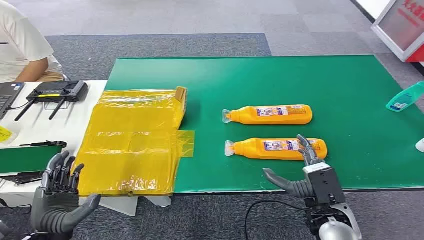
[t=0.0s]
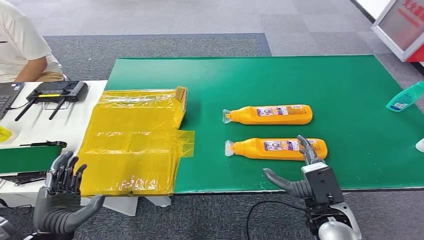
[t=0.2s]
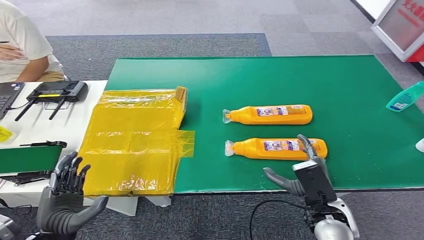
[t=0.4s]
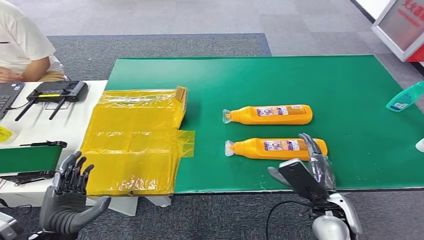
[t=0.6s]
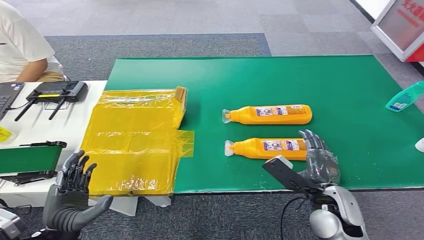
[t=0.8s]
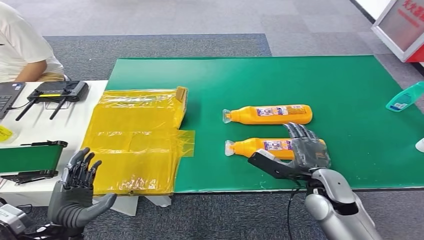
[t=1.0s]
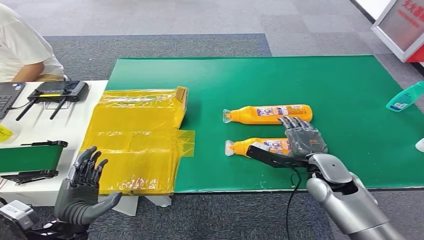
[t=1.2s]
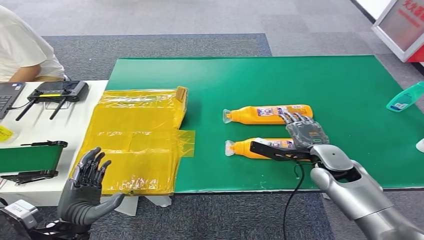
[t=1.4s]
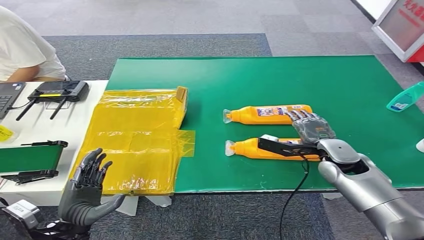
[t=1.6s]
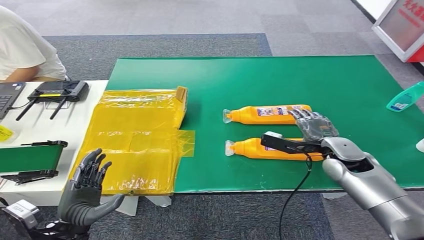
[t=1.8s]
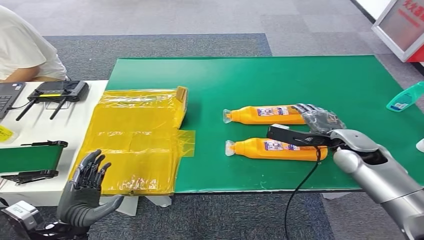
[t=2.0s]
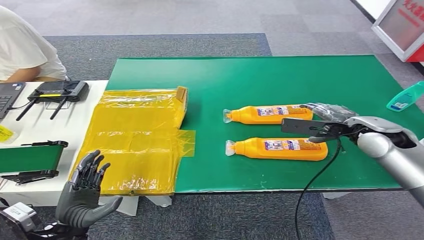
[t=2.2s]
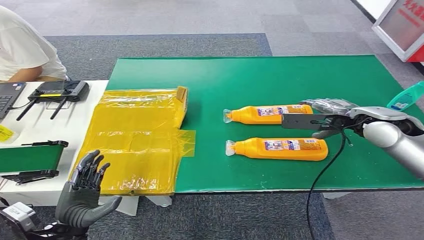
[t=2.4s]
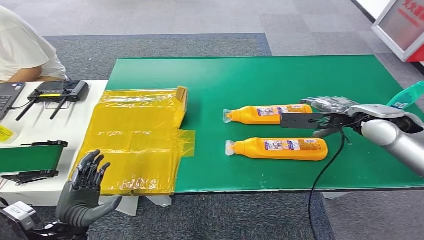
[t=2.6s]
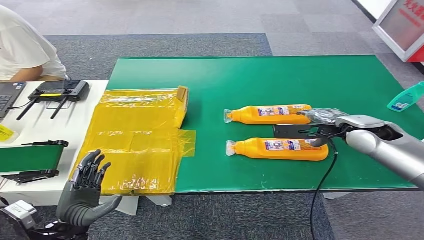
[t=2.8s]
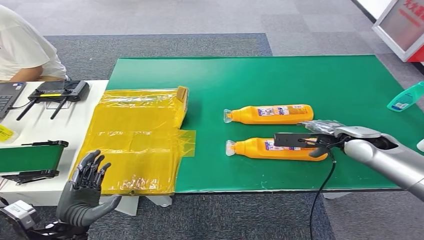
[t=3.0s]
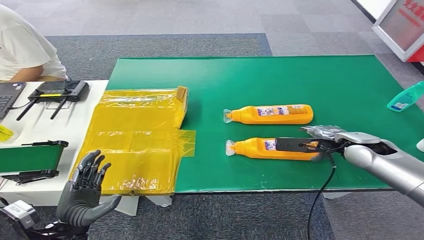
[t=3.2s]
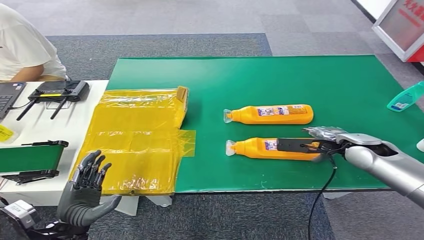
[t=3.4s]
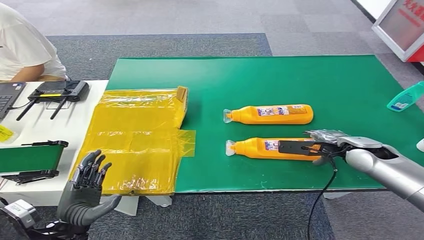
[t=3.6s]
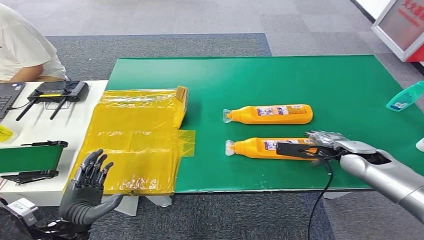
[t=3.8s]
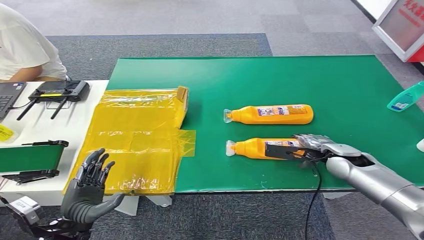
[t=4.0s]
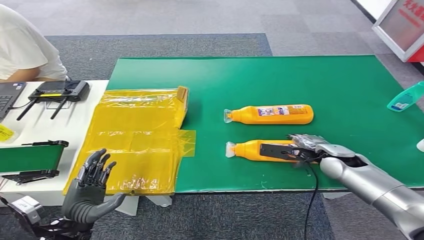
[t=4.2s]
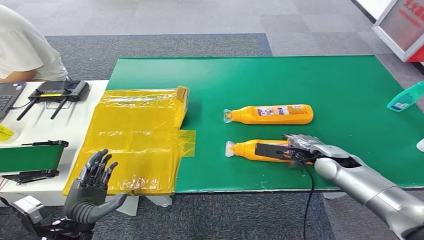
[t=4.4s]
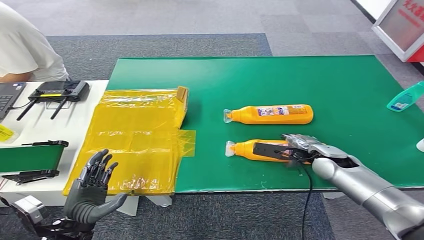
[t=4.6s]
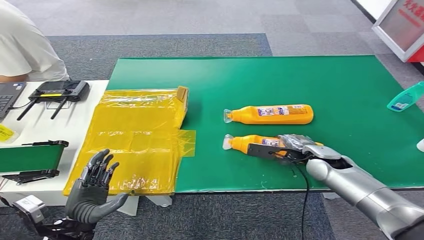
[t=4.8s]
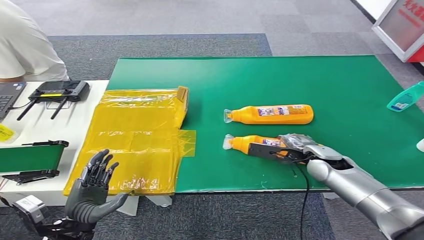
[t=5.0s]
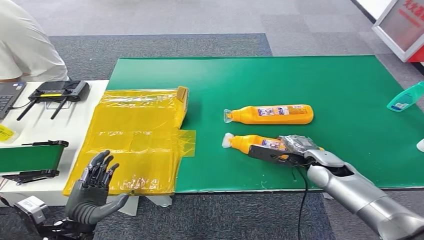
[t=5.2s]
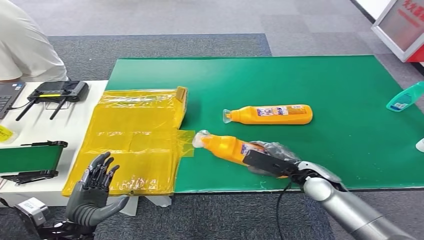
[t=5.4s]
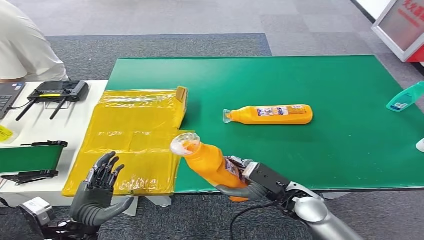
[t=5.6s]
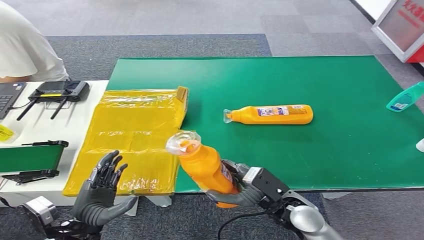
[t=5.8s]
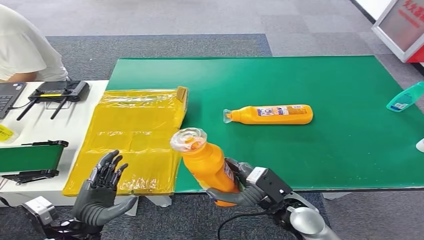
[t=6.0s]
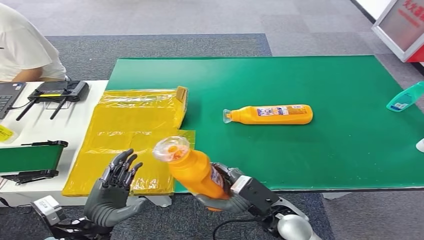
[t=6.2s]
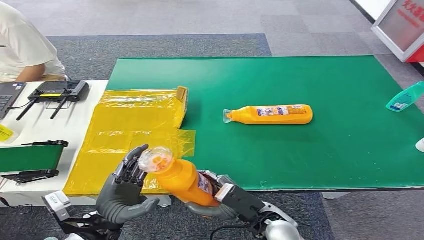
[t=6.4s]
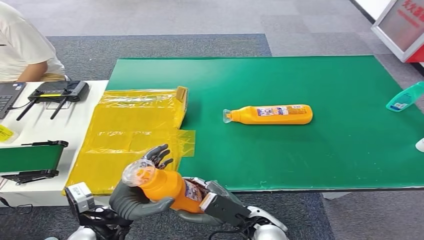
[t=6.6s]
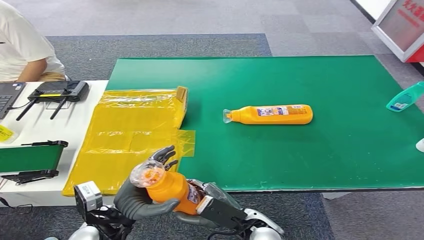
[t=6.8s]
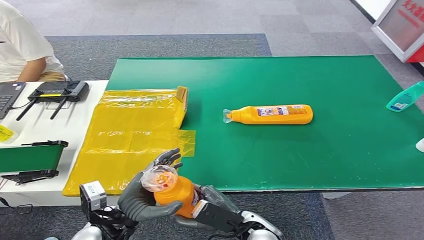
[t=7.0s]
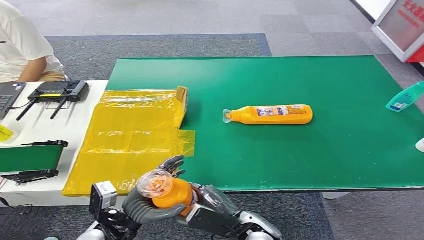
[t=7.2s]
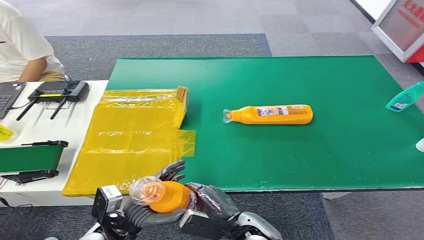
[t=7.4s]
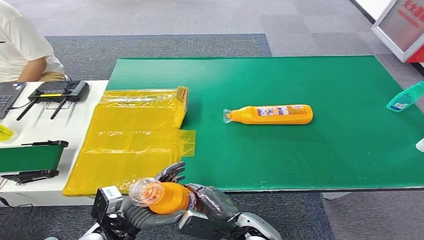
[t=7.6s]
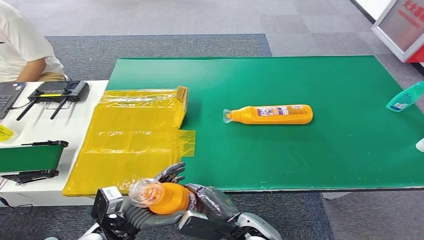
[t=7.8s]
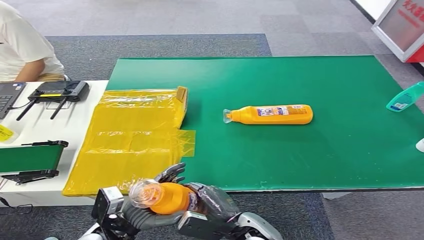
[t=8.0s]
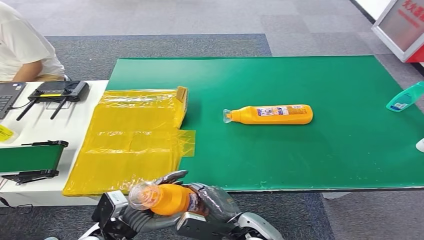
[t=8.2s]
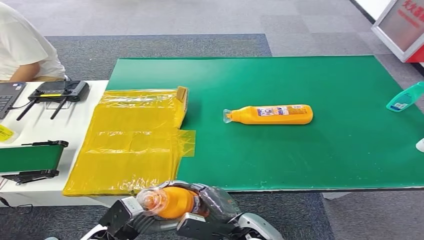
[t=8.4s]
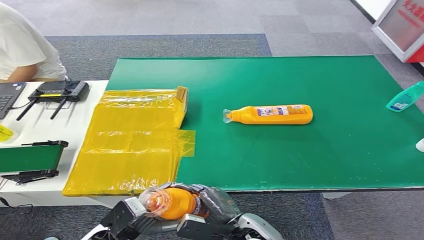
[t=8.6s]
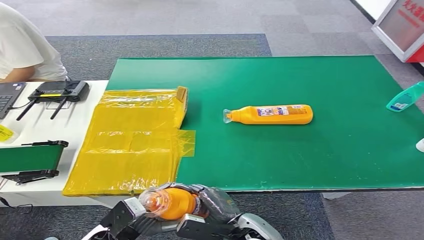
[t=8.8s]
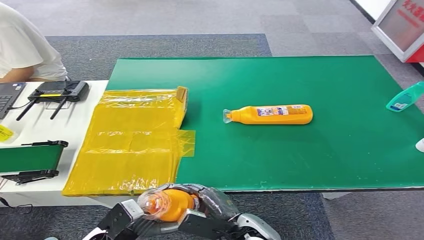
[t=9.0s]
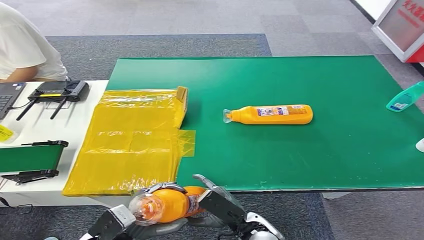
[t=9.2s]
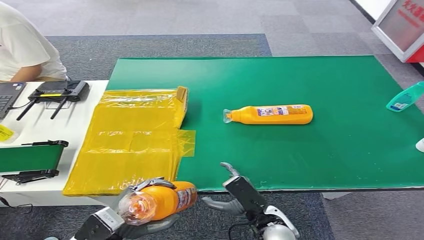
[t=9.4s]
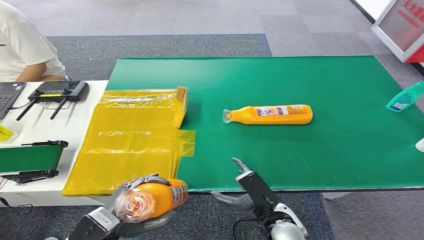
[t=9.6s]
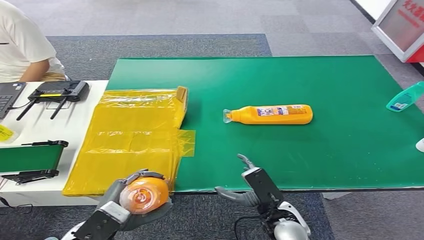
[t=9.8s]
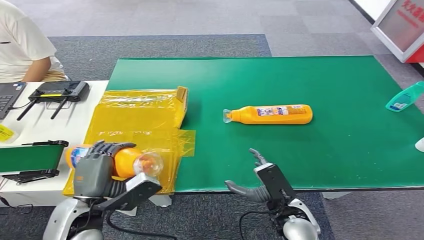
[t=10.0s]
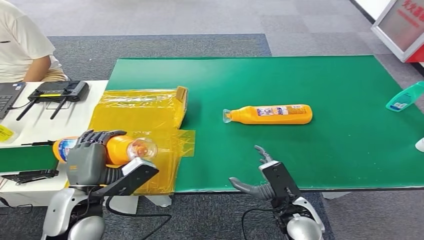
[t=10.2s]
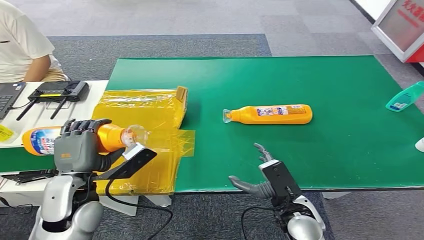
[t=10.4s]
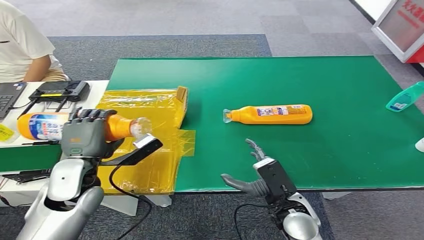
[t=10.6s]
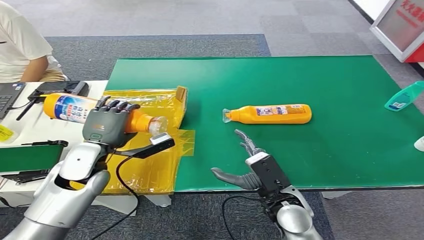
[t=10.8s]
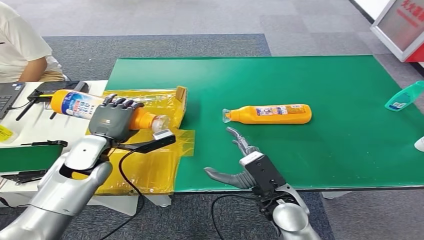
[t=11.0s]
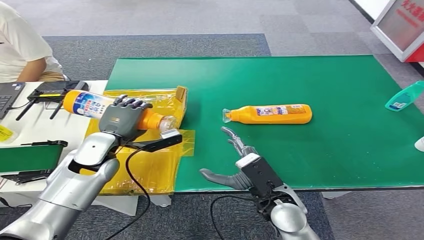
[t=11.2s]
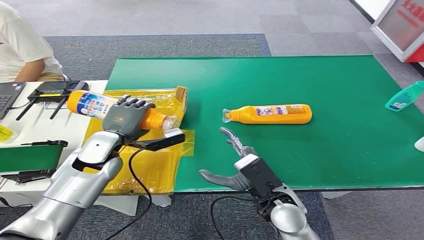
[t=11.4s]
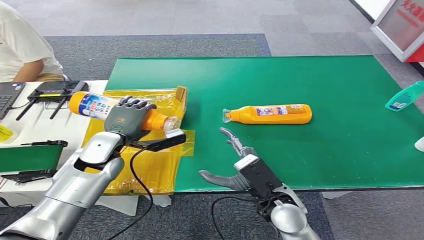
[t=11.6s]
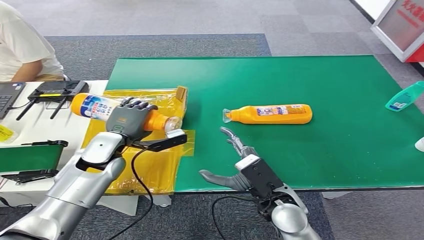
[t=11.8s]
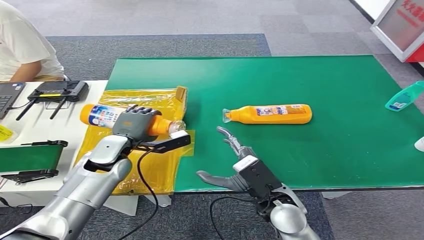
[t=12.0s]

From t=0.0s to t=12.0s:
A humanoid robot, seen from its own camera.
Step, from t=0.0s to t=6.4s: Pick up the bottle from the table.
From t=1.6s to t=3.0s: The right hand shifts about 5 cm upward.
From t=3.0s to t=4.4s: The right hand moves downward, roughly 10 cm.
From t=4.4s to t=6.0s: The right hand is displaced backward and to the left by roughly 20 cm.
From t=6.0s to t=7.6s: The right hand shifts roughly 10 cm to the left, while the left hand heads to the right, covering approximately 5 cm.
From t=7.6s to t=9.0s: The hands make only small movements.
From t=9.0s to t=10.4s: The left hand travels upward and forward by approximately 15 cm; the right hand travels to the right by roughly 10 cm.
From t=10.4s to t=12.0s: The left hand shifts about 15 cm forward, while the right hand shifts by about 5 cm.

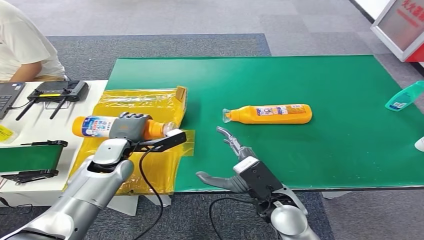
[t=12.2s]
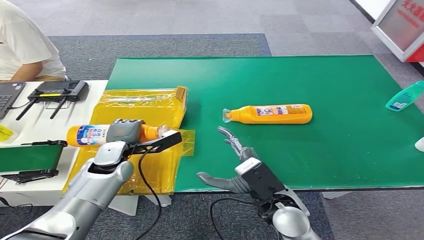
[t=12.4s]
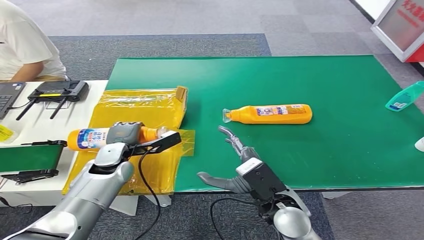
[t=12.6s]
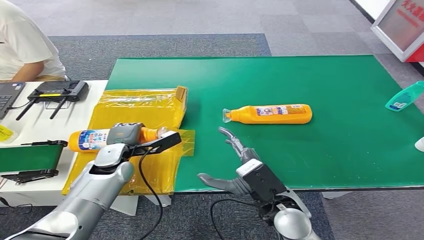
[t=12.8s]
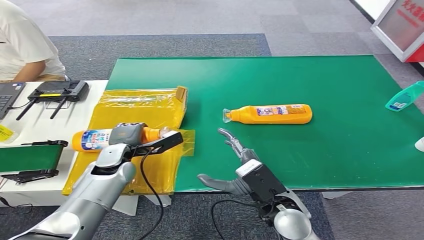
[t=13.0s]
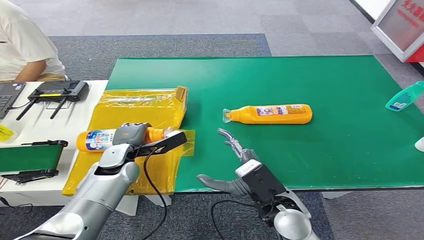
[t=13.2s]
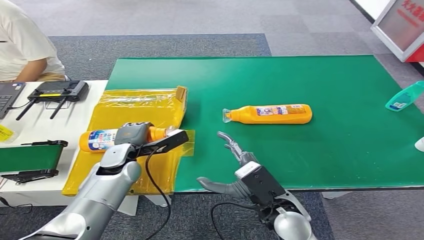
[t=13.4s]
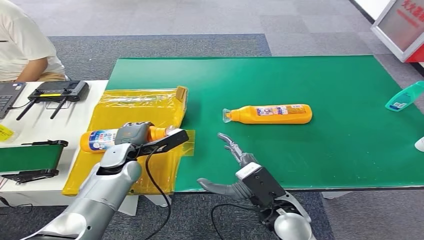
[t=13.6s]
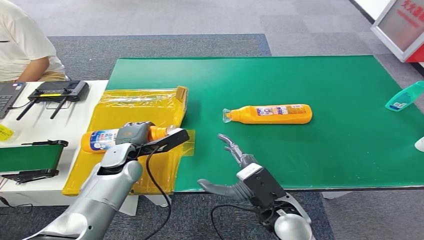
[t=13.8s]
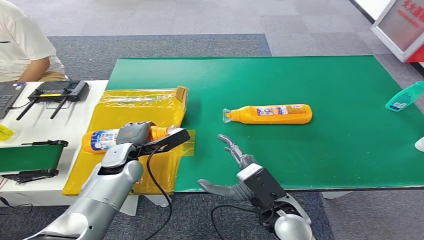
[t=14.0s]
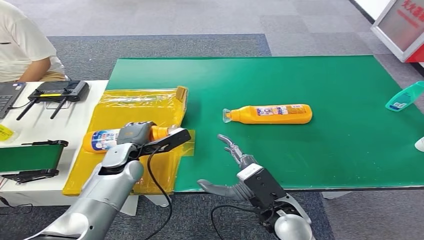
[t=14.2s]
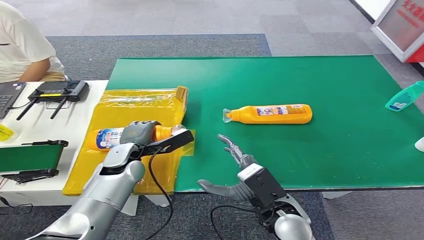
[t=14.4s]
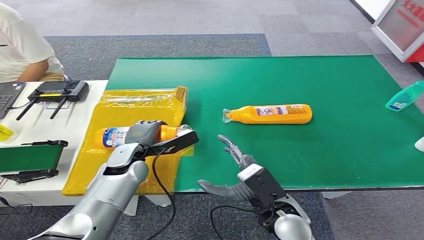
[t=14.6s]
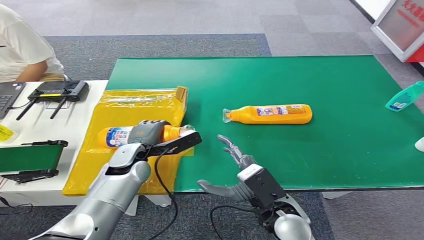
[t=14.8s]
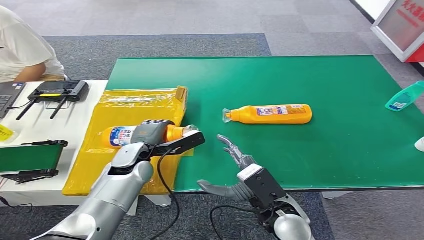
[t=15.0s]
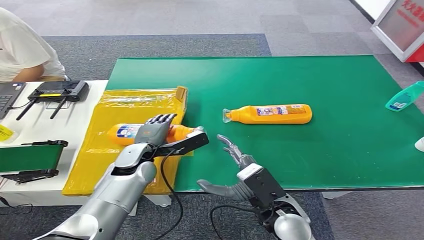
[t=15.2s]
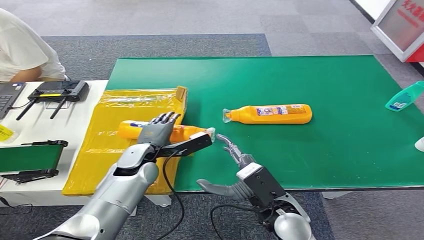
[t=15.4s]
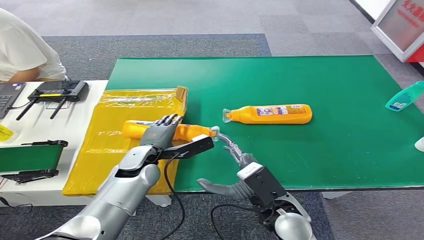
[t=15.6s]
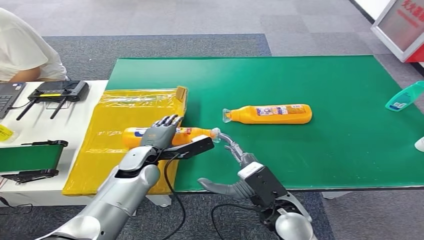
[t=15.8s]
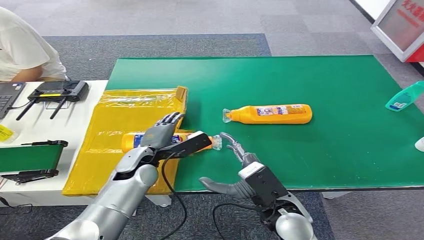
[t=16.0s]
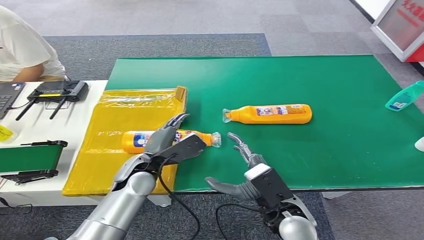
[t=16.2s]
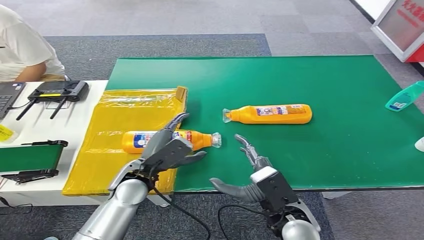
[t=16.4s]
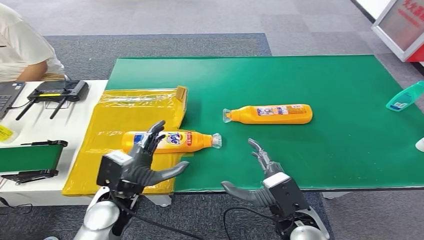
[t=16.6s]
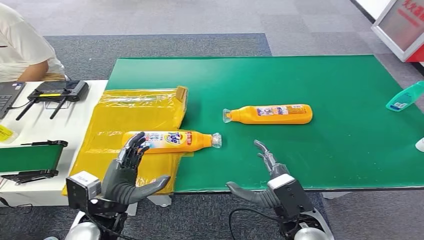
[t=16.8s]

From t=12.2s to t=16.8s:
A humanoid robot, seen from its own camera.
Step, from t=12.2s to t=16.8s: Turn the bottle to the front side.
From t=12.2s to t=15.2s: There are only small adjustments of the hands.
From t=15.2s to t=16.8s: The right hand ends up about 5 cm from where it was; the left hand is displaced backward by roughly 15 cm.
